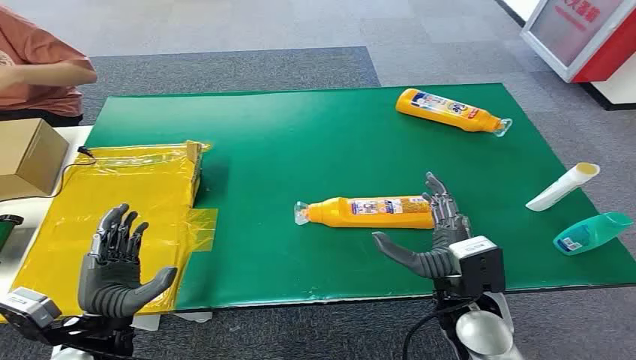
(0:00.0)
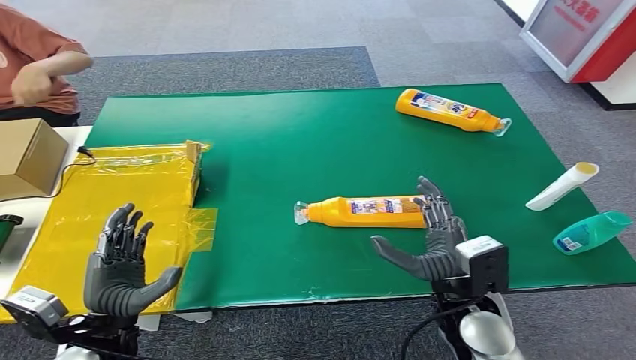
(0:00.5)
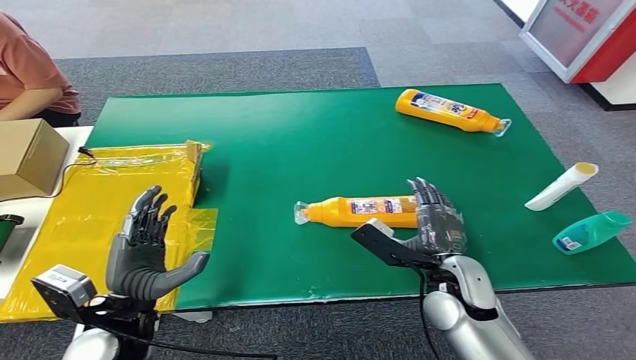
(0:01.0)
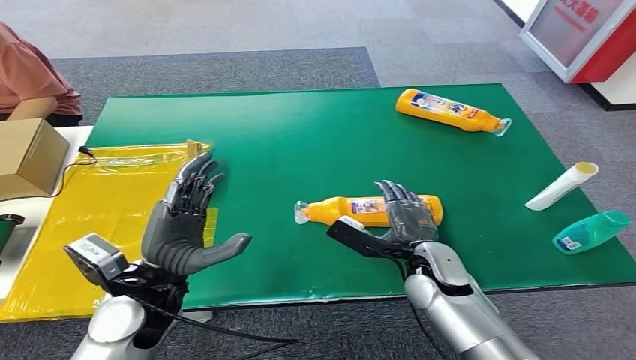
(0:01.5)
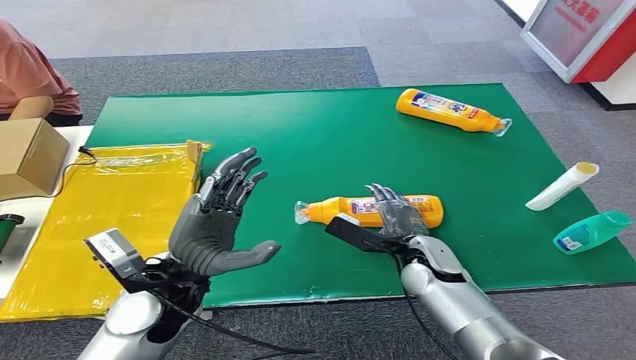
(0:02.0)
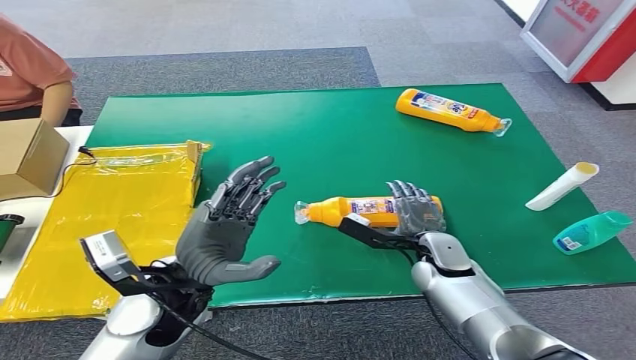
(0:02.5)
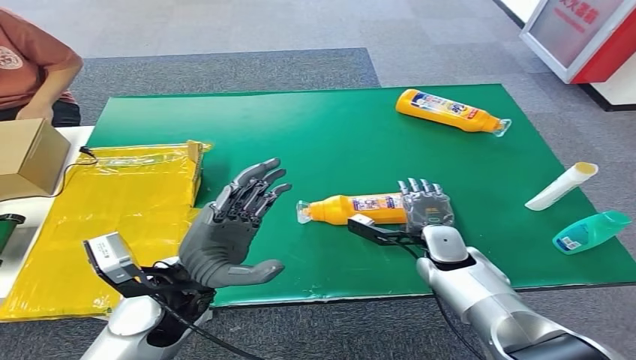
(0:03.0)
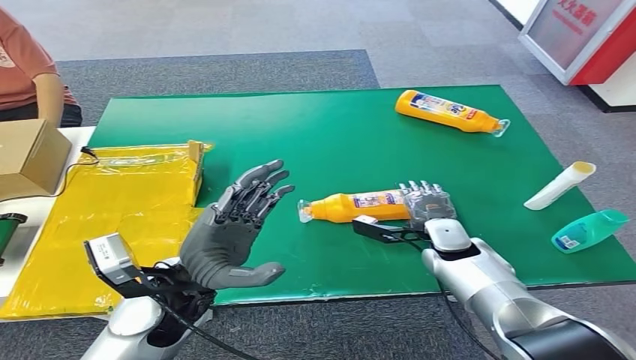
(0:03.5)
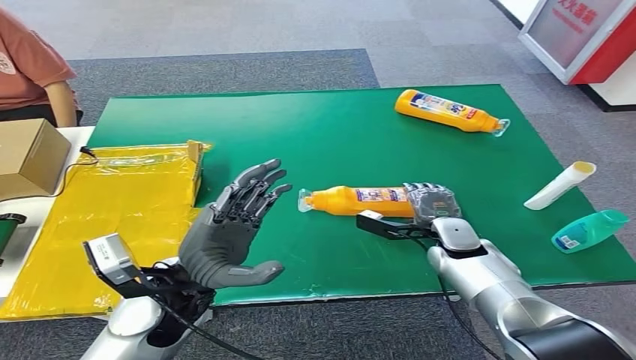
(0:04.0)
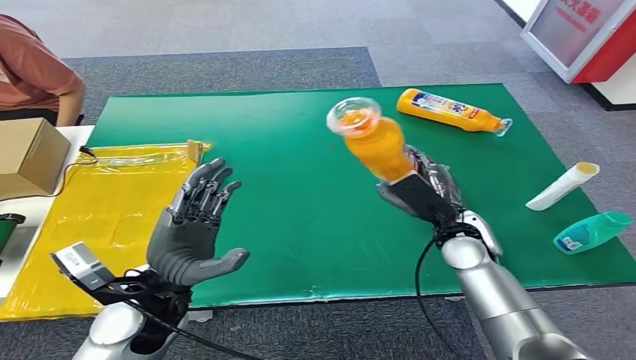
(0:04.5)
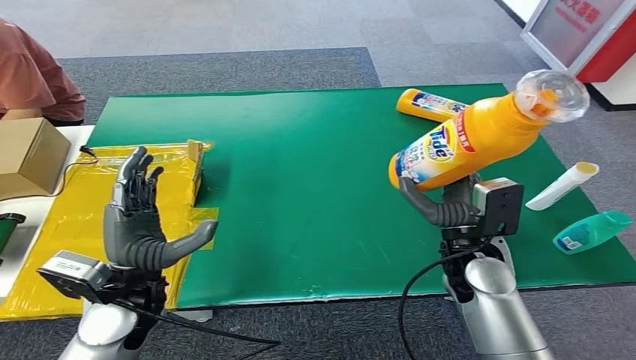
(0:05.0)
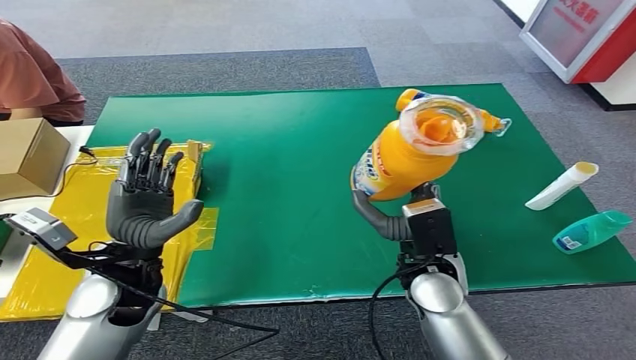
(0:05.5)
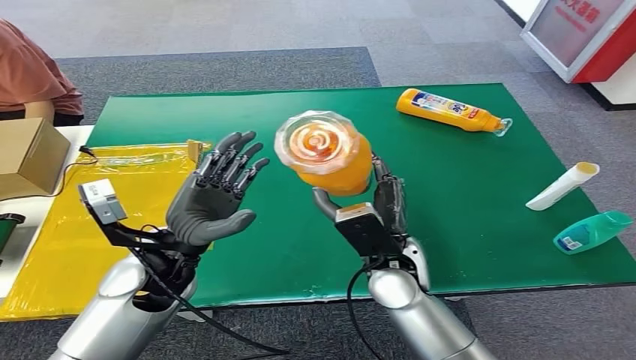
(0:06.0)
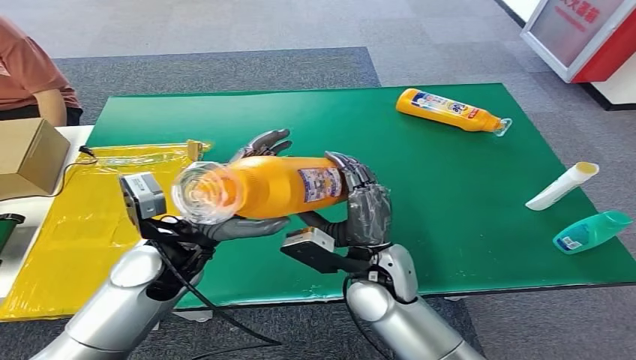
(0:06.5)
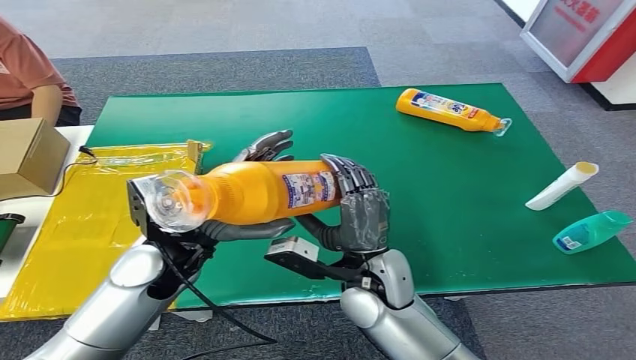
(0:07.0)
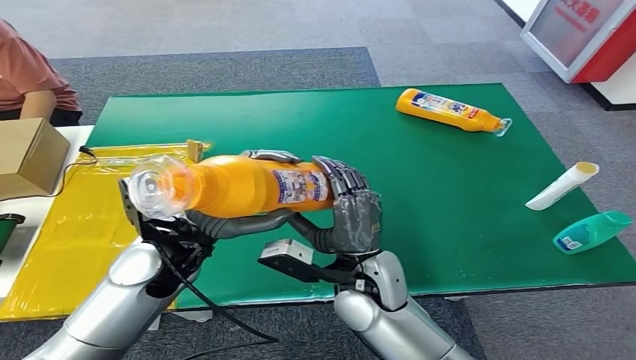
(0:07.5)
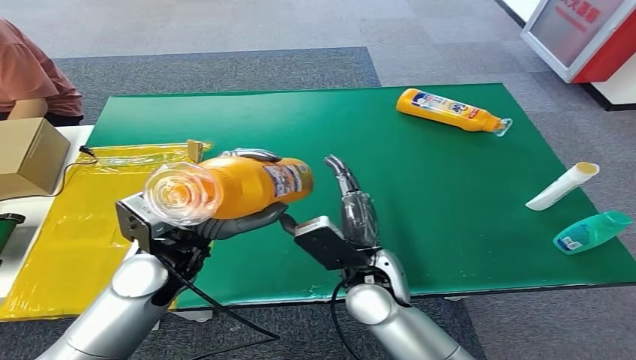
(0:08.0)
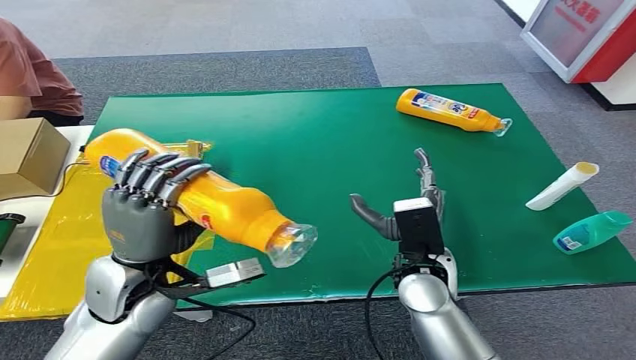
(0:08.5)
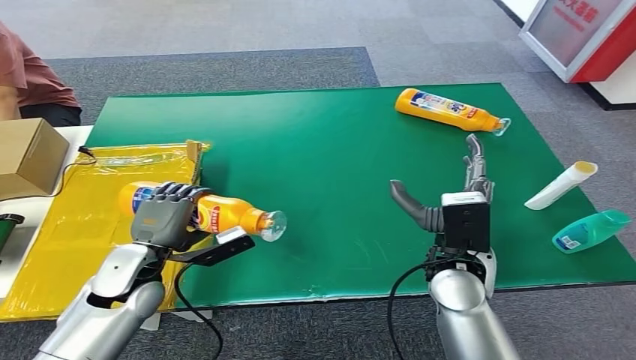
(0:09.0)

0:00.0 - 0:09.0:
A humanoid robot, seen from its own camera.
Step, 0:00.0 - 0:05.5: Pick up the bottle from the table.
Step, 0:06.0 - 0:09.0: Turn the bottle to the front side.

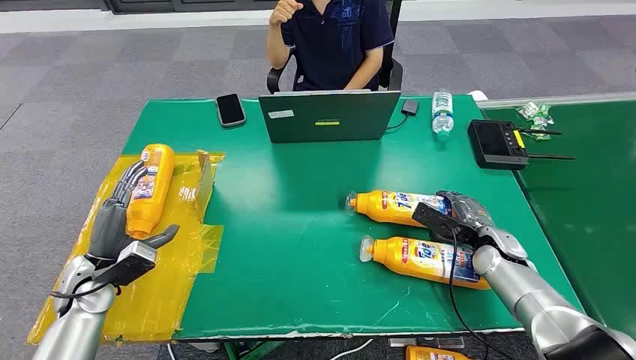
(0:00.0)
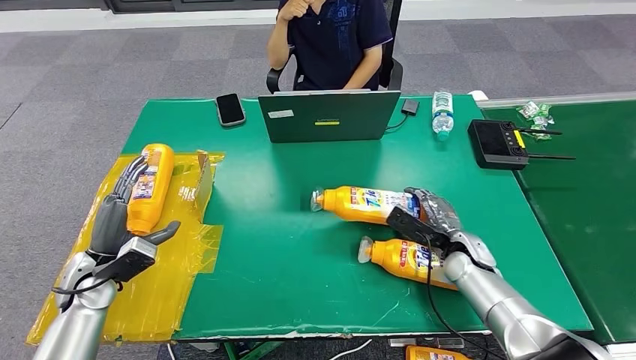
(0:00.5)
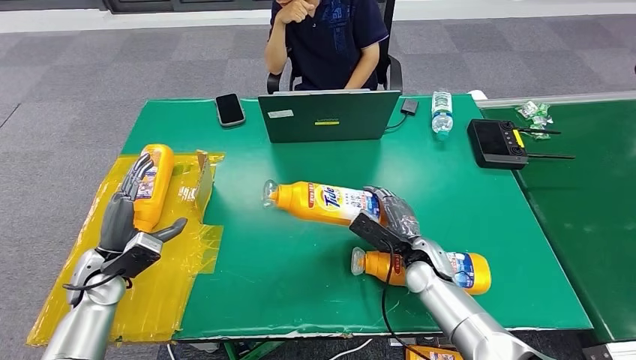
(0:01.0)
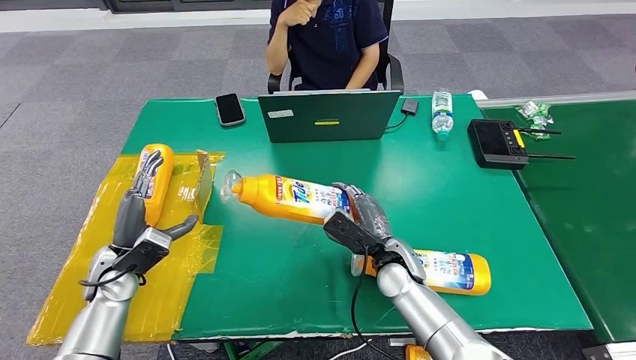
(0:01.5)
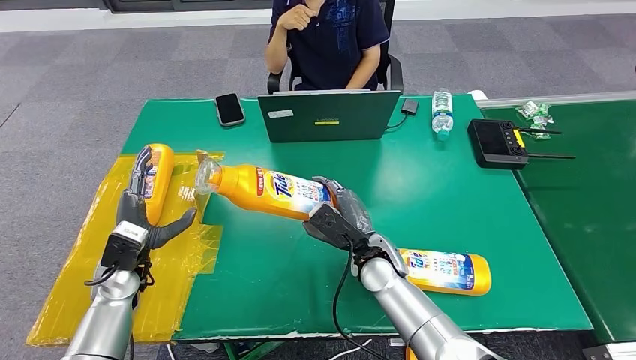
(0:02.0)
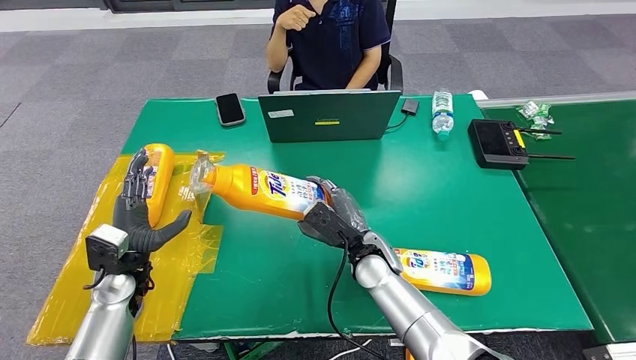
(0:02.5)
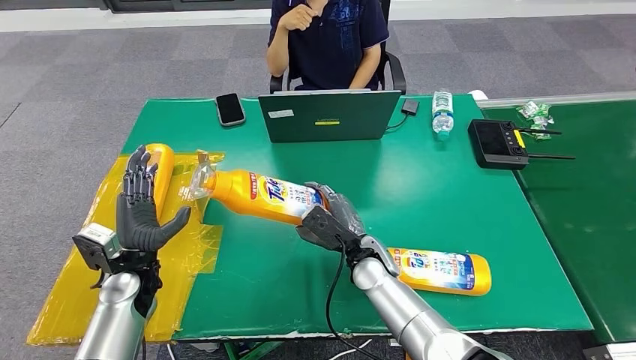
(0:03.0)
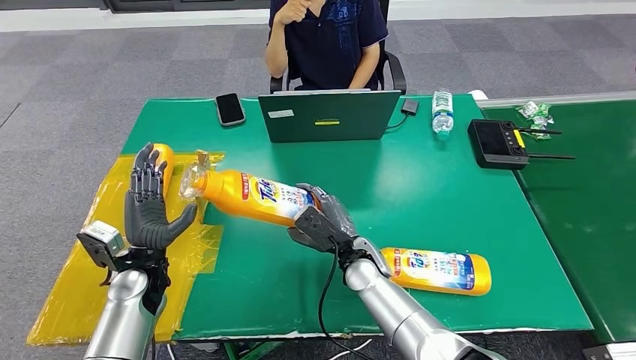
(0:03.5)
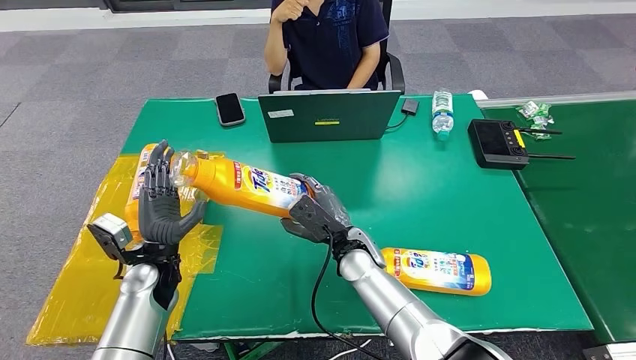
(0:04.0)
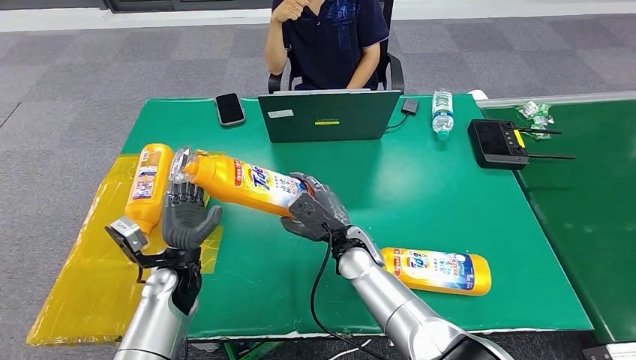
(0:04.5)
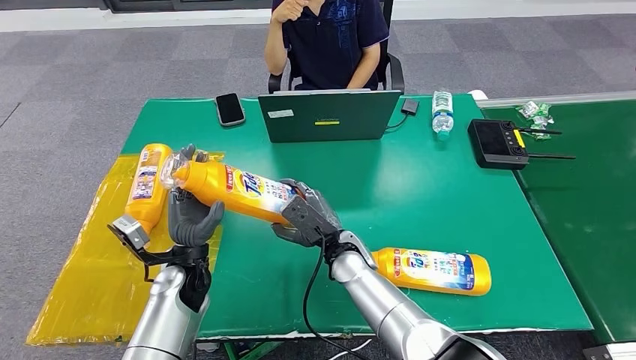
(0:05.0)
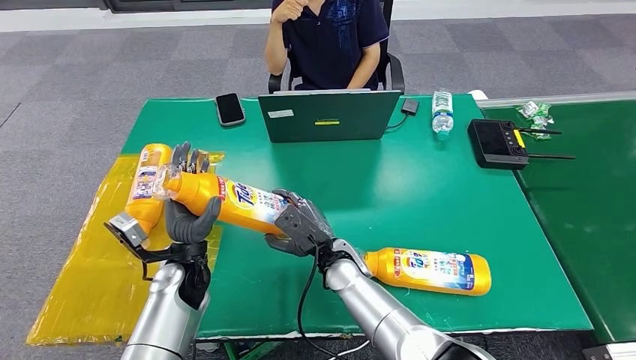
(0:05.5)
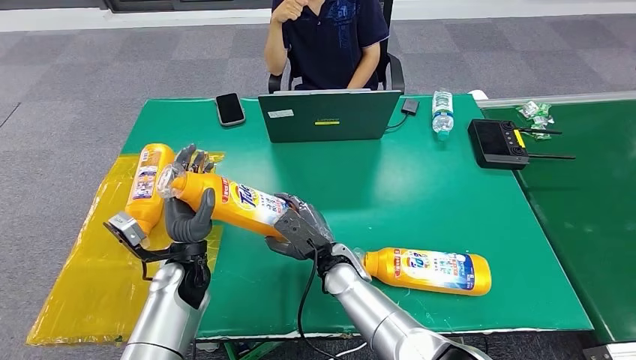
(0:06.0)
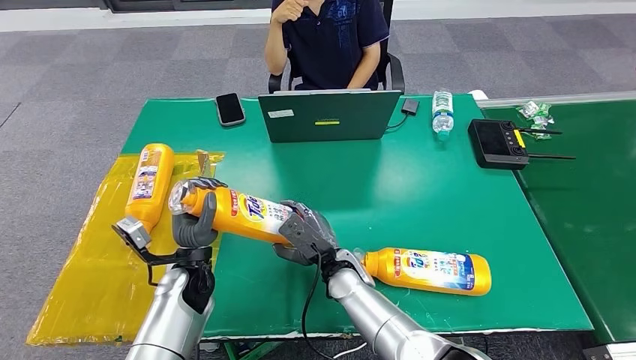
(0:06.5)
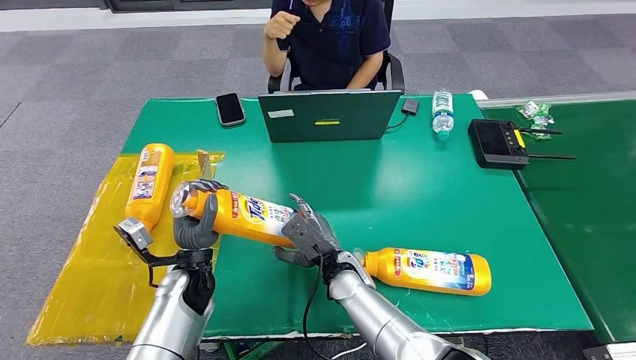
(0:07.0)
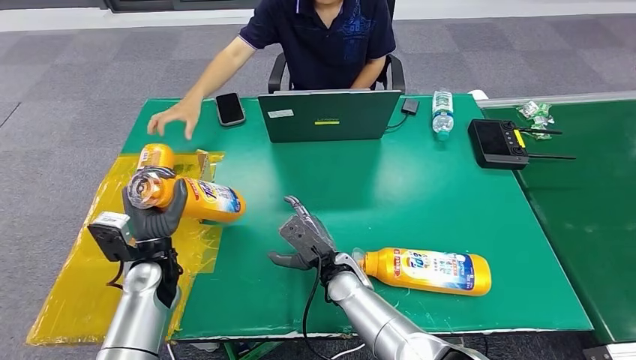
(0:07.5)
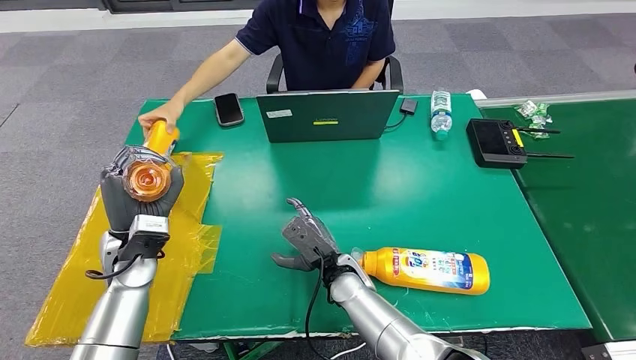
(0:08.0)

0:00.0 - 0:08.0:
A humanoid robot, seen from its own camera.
Step, 0:00.0 - 0:02.0: Pick up the bottle from the table.
Step, 0:03.0 - 0:08.0: Turn the bottle to the front side.
0:02.0 - 0:04.0: The left hand shifts approximately 5 cm to the right.
0:04.0 - 0:06.0: The left hand is displaced to the right by some 5 cm.
0:06.0 - 0:08.0: The left hand moves to the left and upward, about 10 cm.
